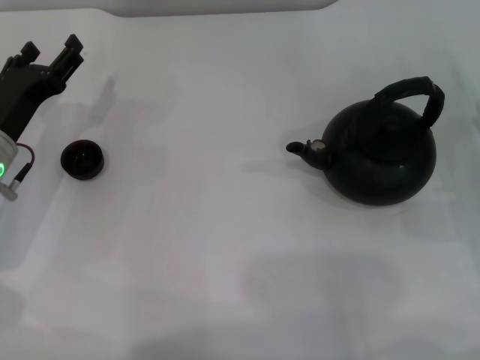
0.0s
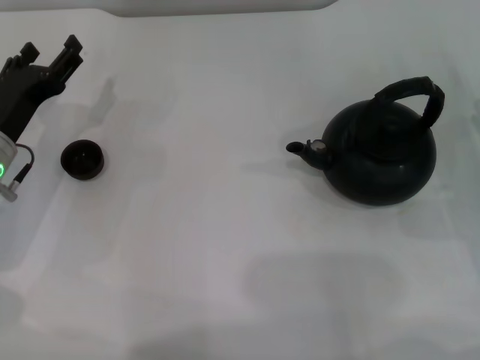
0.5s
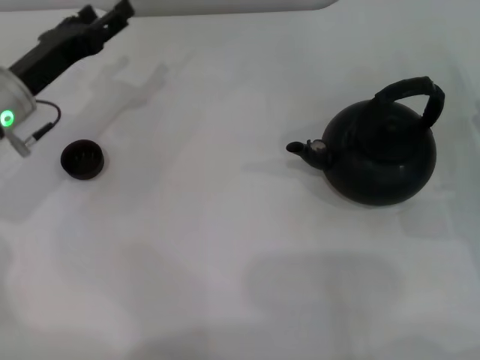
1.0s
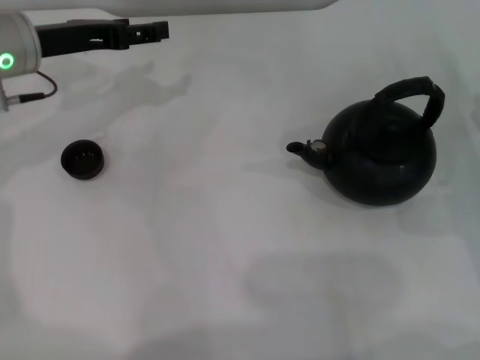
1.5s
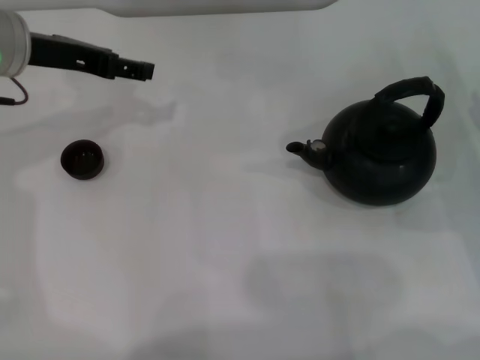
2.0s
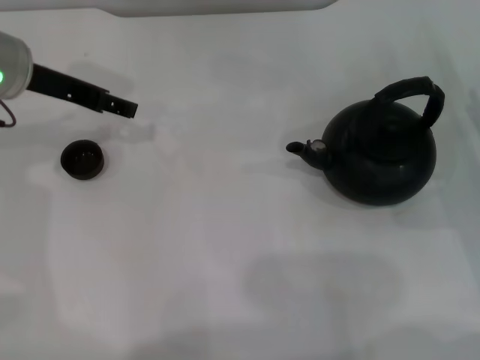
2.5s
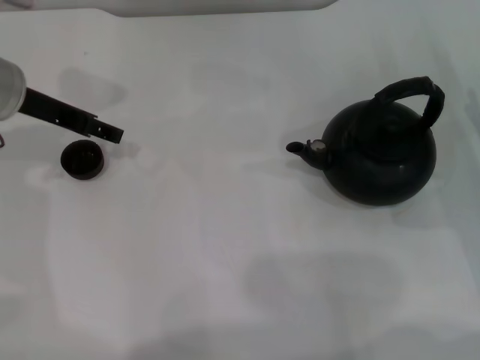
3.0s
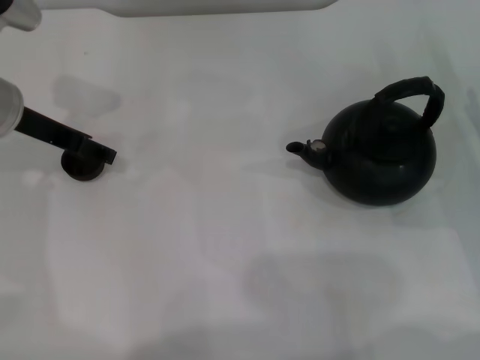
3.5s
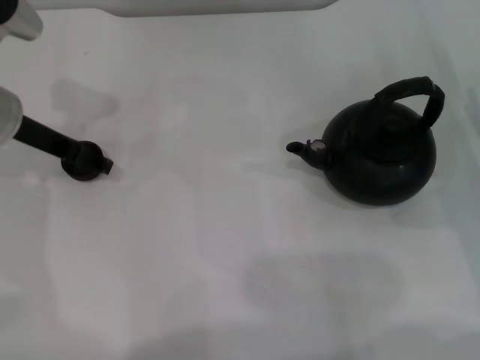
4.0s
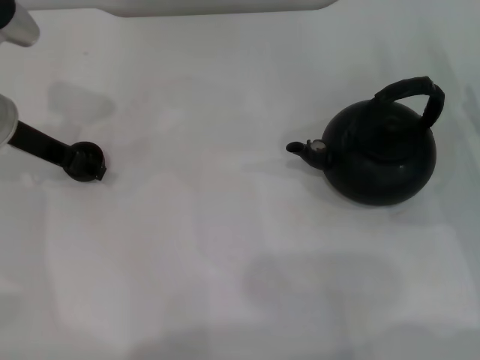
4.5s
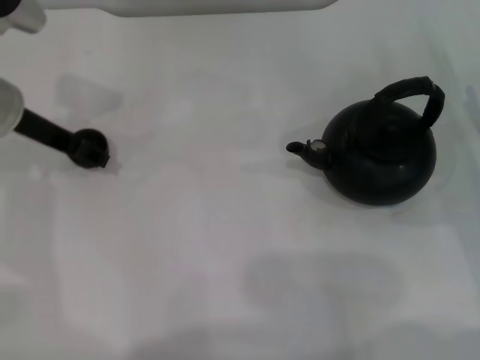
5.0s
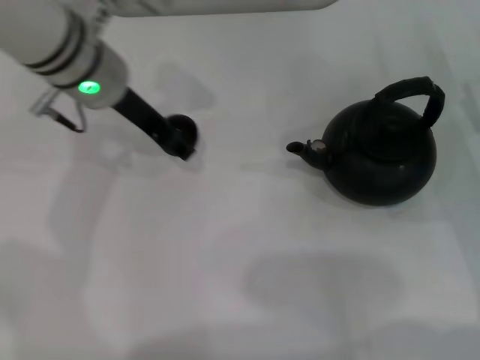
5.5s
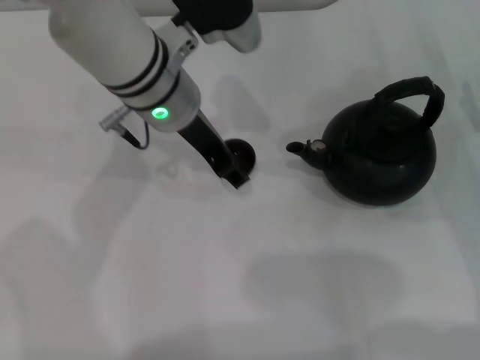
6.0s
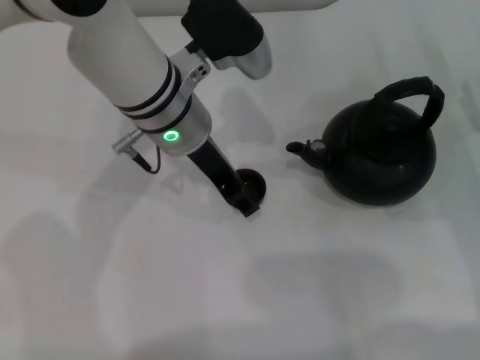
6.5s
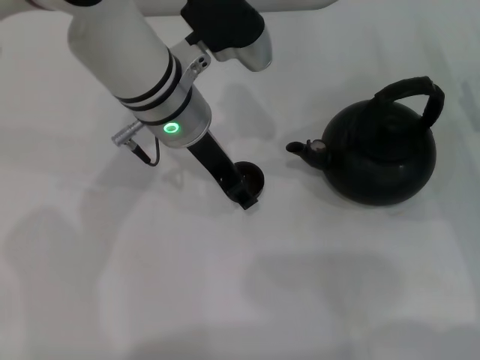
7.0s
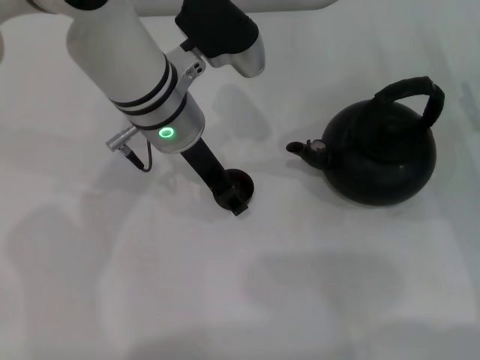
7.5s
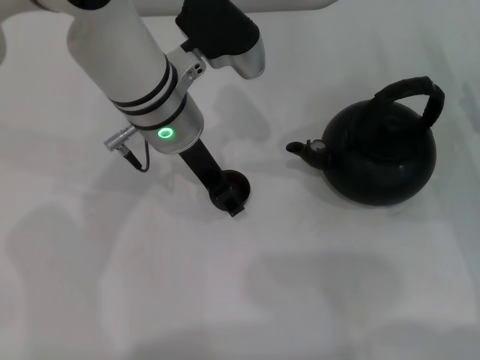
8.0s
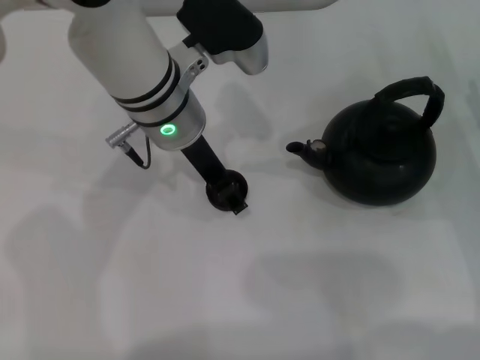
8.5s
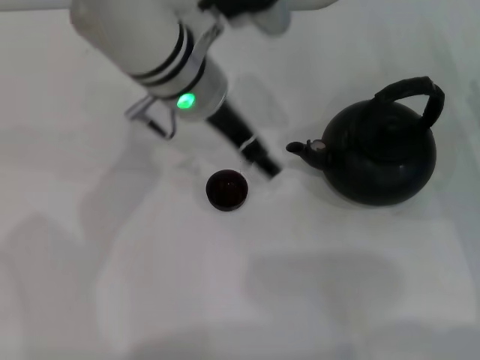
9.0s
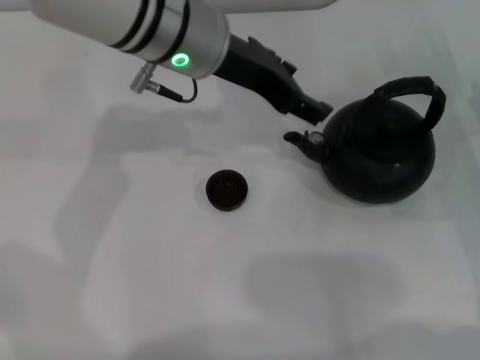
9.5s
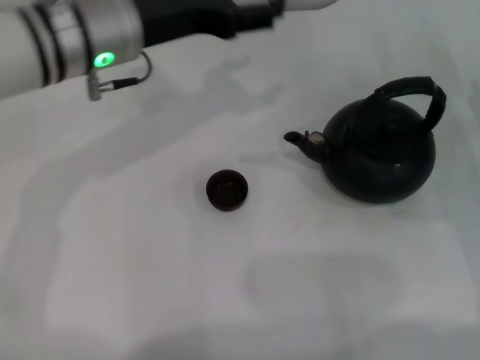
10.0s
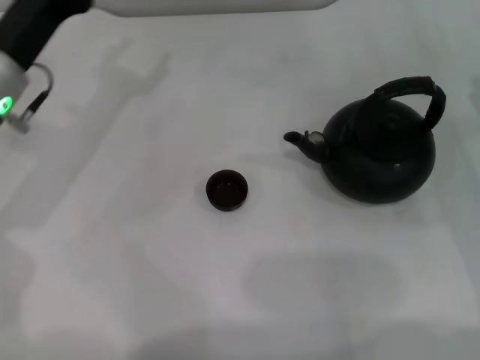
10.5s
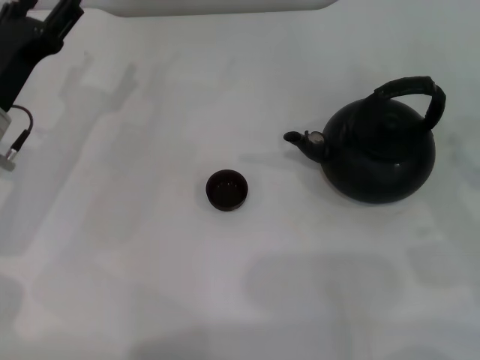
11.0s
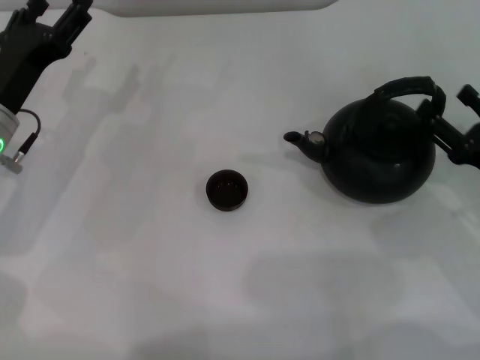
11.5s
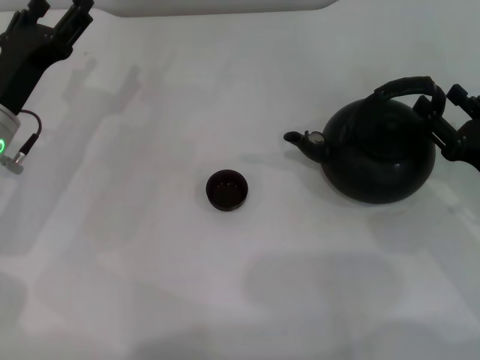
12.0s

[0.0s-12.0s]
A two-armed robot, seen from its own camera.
Task of the whole recording: Grasp the handle of the teapot with one hand and pour tea into the teacup.
Step, 0.0s to 5.0s: Pick up the teacup with the left gripper.
Step, 5.5s to 8.5s: Place the teacup in the center of view with the left gripper.
0.0s to 2.0s: The left gripper goes approximately 15 cm upward and forward.
4.0s to 6.0s: The left gripper travels to the right by roughly 15 cm, and closes.
6.0s to 8.0s: The grippers stay close to where they were, moving slightly.
8.0s to 10.0s: The left gripper shifts approximately 5 cm to the left, and opens.
10.0s to 12.0s: The left gripper shifts about 15 cm to the left and downward.

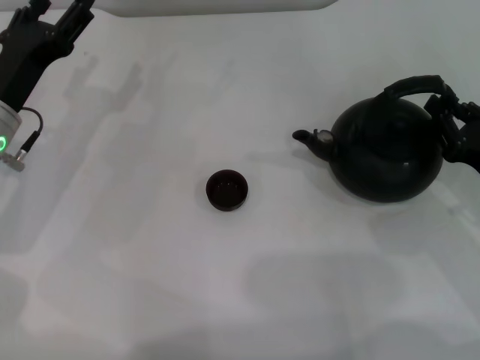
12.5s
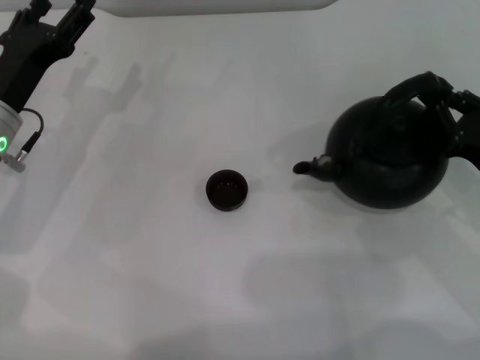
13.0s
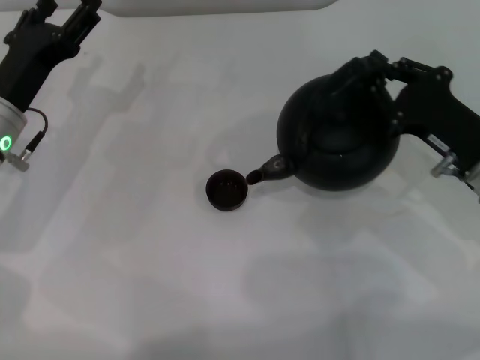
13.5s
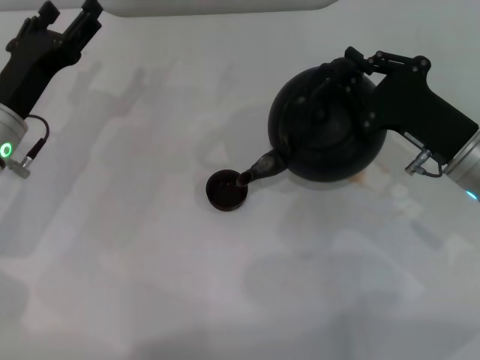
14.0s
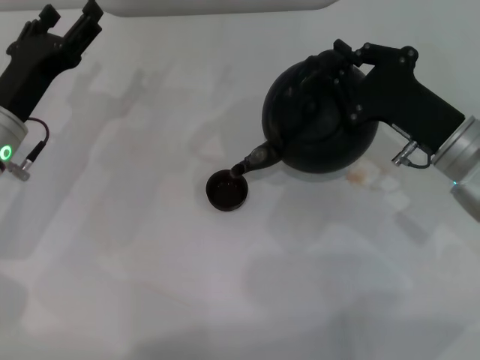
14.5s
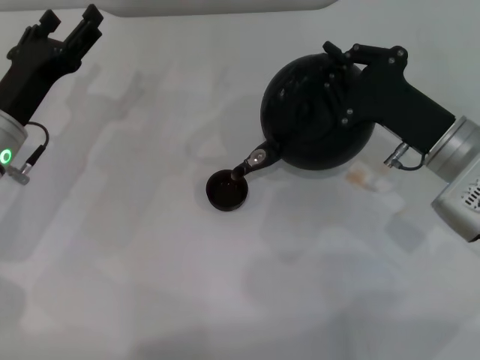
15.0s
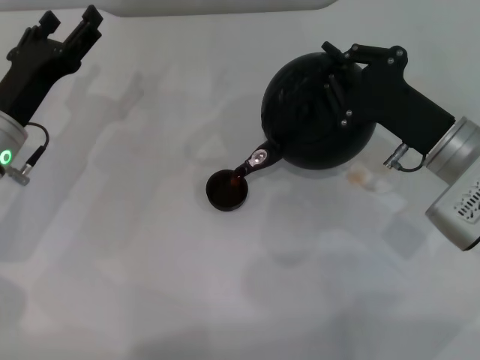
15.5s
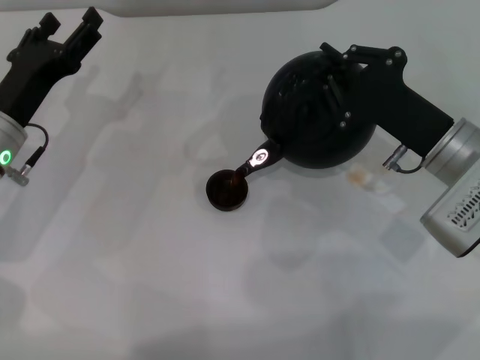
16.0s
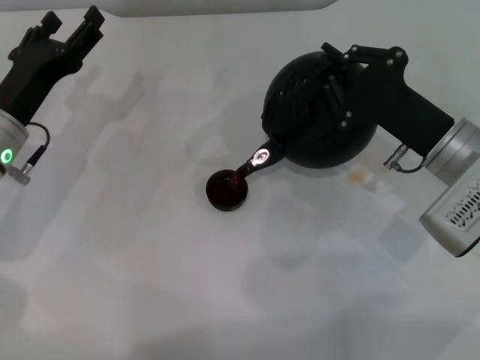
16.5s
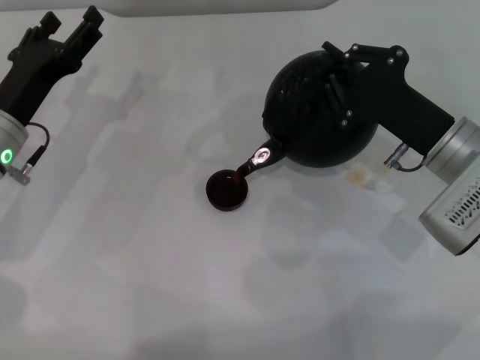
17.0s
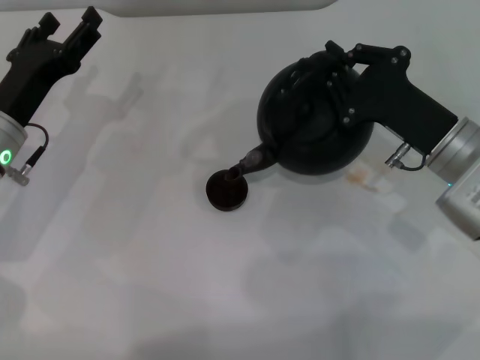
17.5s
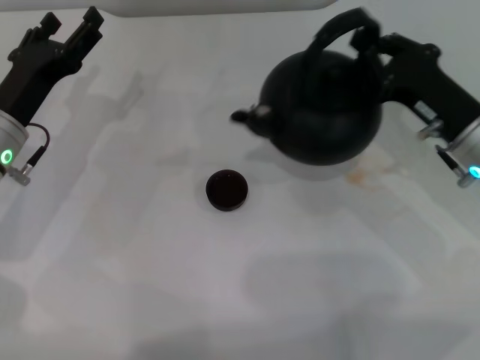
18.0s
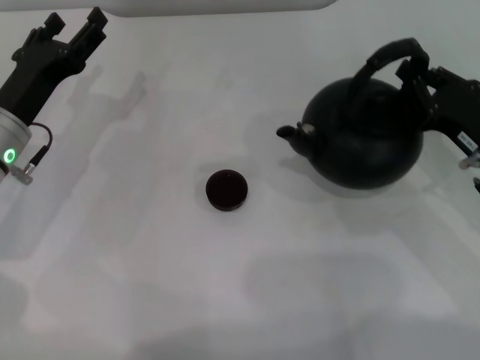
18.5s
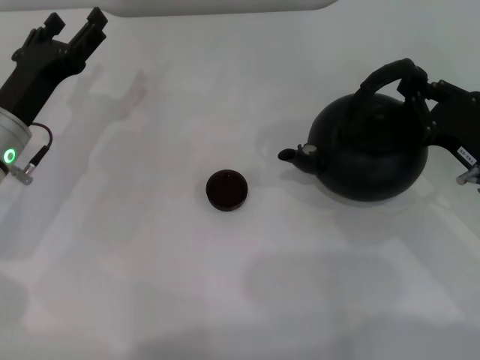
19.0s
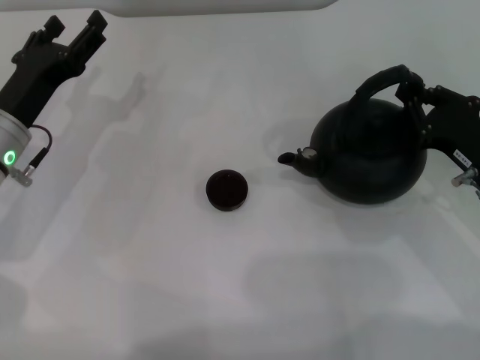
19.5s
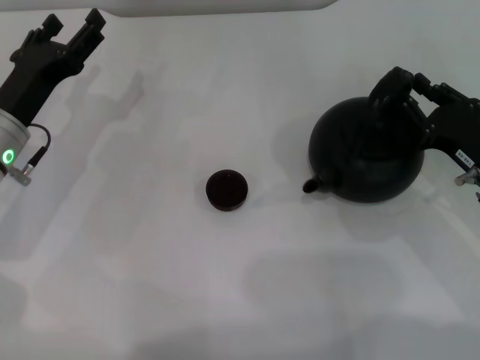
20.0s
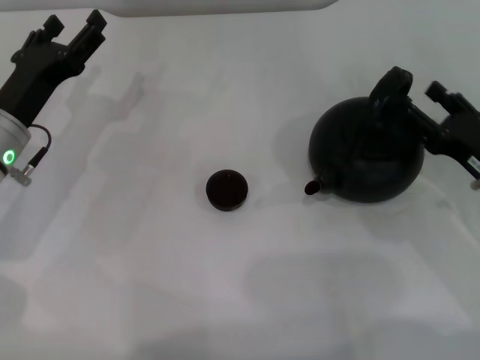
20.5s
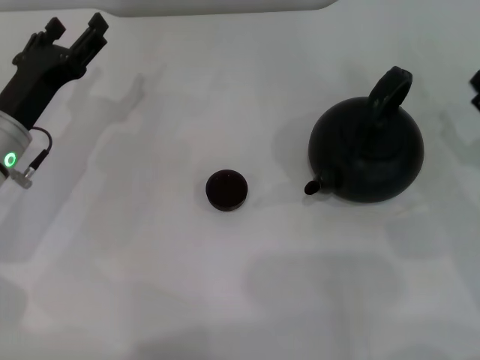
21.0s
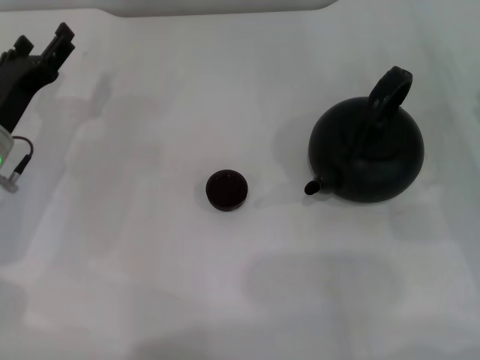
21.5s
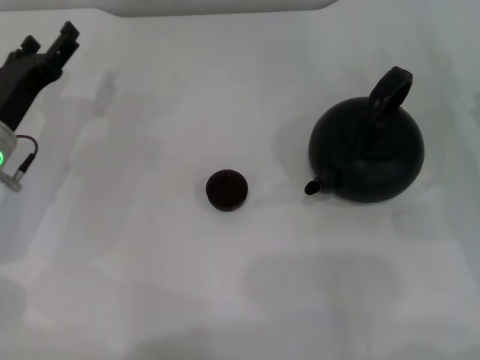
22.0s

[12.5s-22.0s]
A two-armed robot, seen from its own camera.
Task of the whole recording: Grasp the handle of the teapot with one hand and pour tea into the teacup.
Step, 13.5s to 17.5s: Pour tea into the teacup with the right gripper.
Step, 18.0s to 20.5s: Put down the teapot with the right gripper.
12.5s to 14.5s: The right gripper goes roughly 10 cm to the left and forward, and closes its fingers.
14.5s to 16.5s: The grippers move only a little.
18.0s to 20.0s: The right gripper shifts by some 5 cm.
20.0s to 22.0s: The right gripper shifts roughly 5 cm to the right, and opens its fingers.

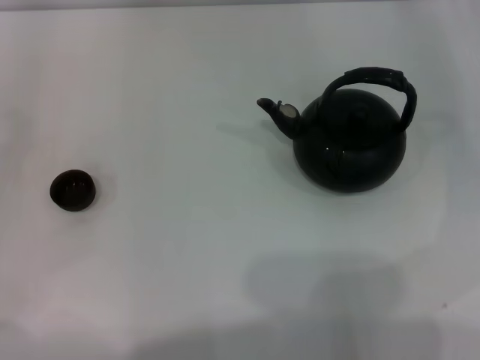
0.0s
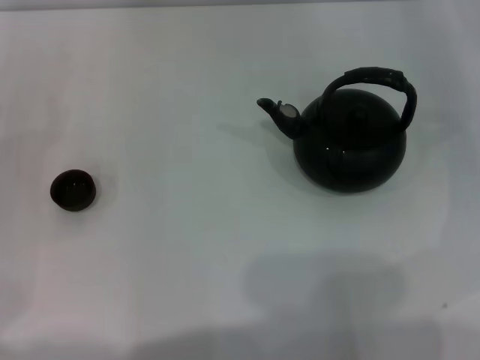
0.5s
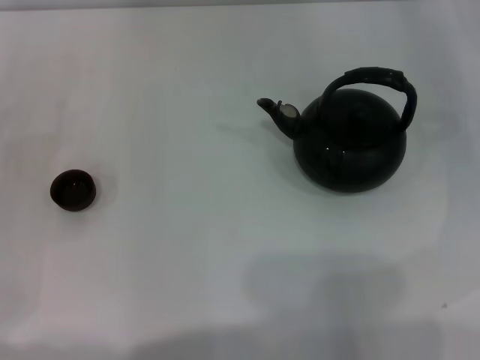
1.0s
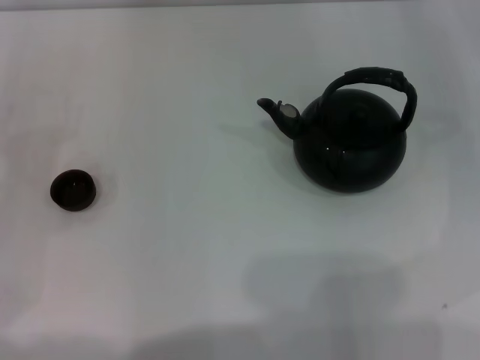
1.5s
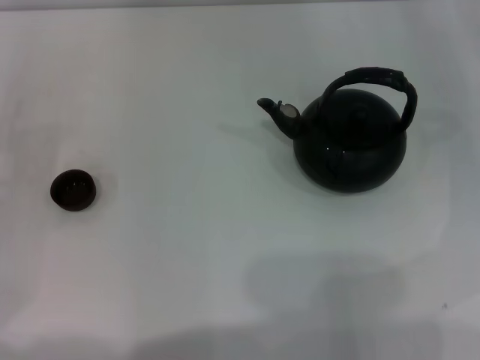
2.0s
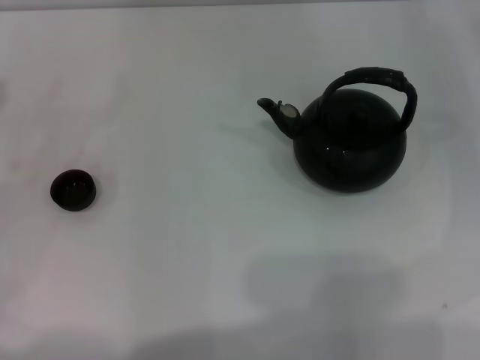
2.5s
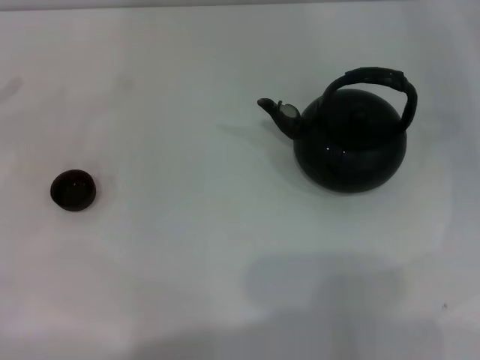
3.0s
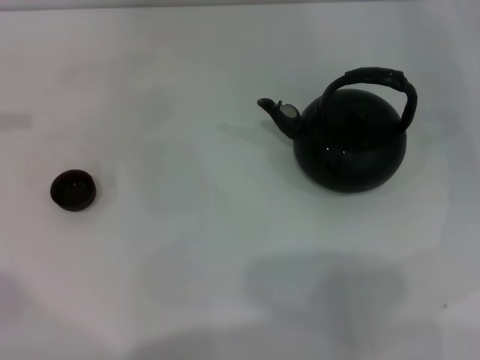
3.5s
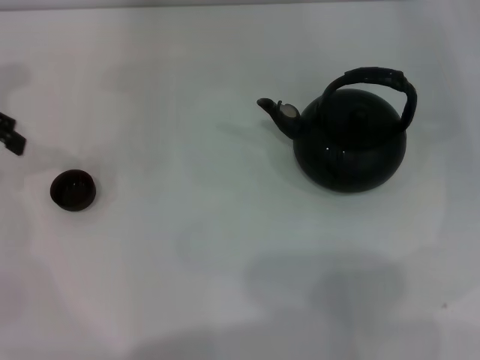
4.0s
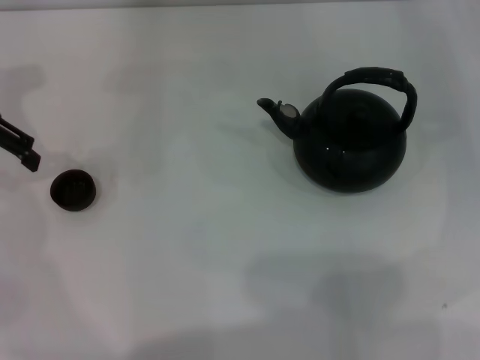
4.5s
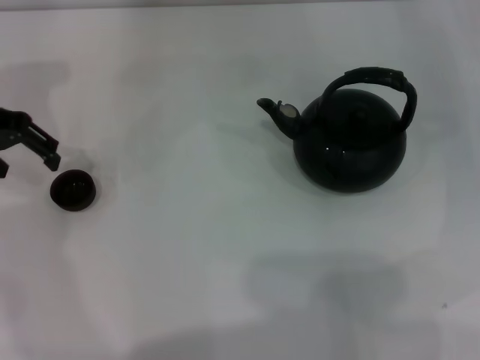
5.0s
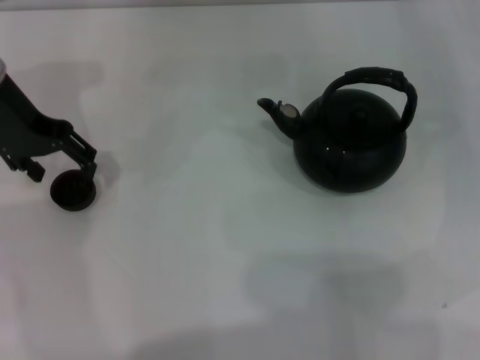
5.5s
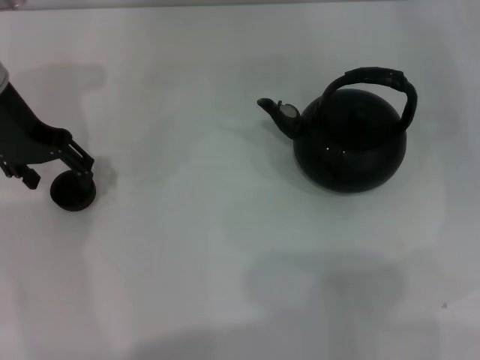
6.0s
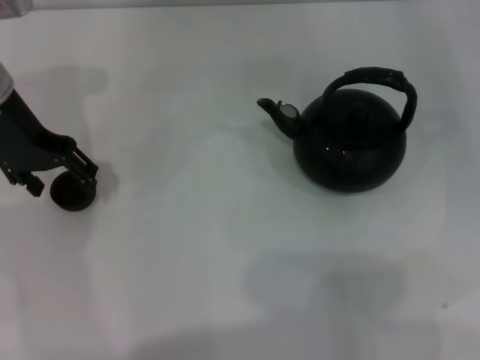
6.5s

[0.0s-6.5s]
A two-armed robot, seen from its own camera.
Task of the whole recording: Grasp the handle of the teapot with one hand and pour tea into the teacup.
2.0s to 4.5s: The left gripper heads upward and forward, covering roughly 20 cm, and opens its fingers.
4.5s to 6.5s: The left gripper is displaced to the right by approximately 10 cm.
